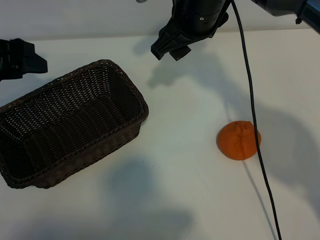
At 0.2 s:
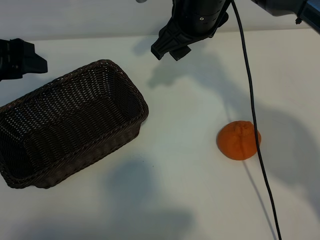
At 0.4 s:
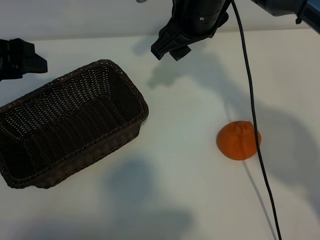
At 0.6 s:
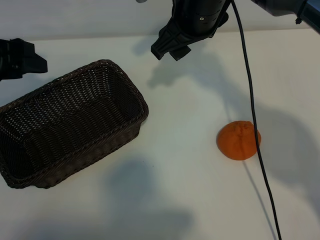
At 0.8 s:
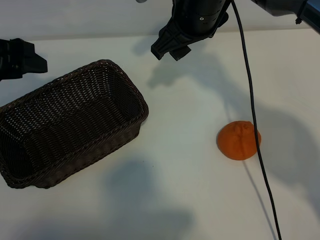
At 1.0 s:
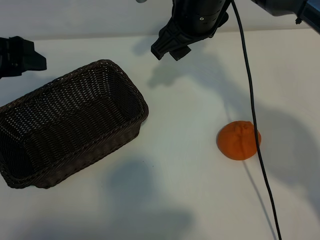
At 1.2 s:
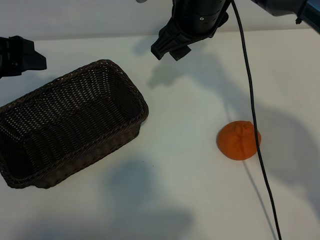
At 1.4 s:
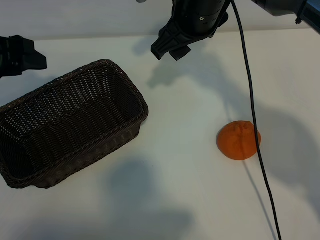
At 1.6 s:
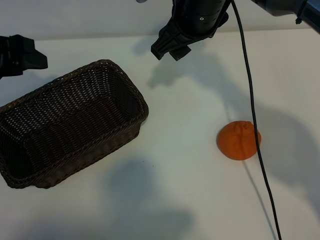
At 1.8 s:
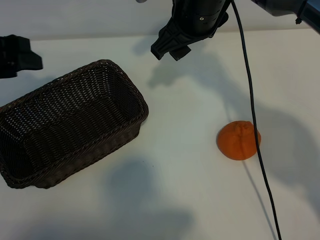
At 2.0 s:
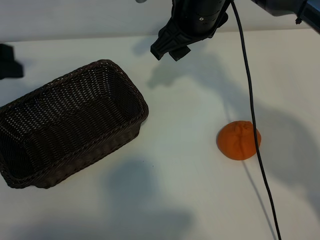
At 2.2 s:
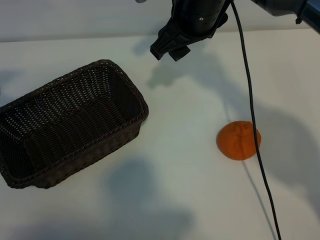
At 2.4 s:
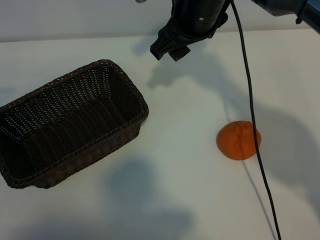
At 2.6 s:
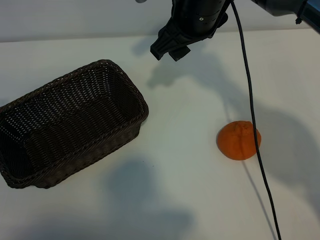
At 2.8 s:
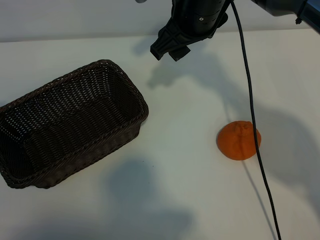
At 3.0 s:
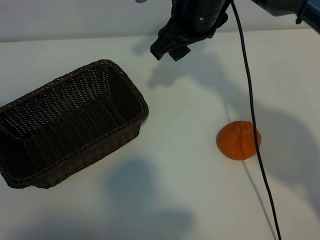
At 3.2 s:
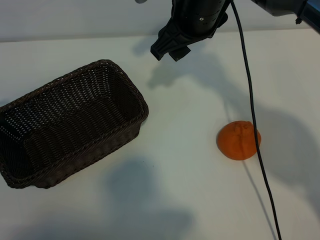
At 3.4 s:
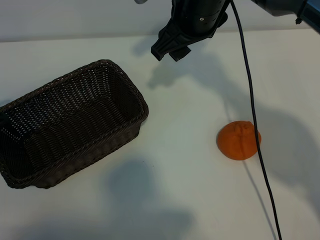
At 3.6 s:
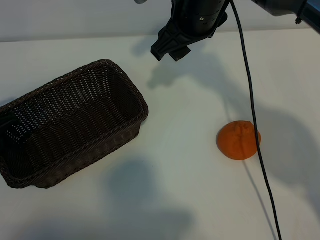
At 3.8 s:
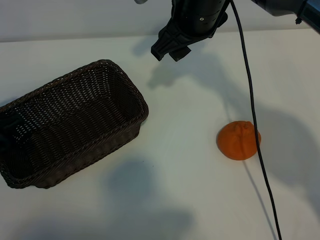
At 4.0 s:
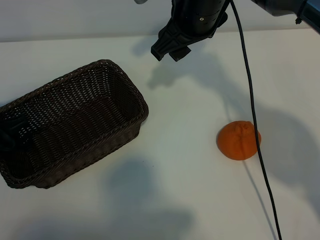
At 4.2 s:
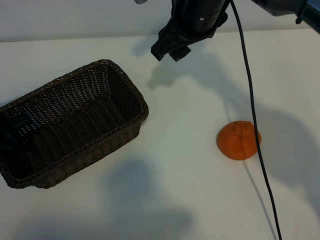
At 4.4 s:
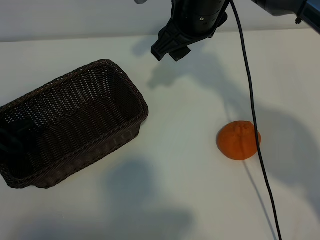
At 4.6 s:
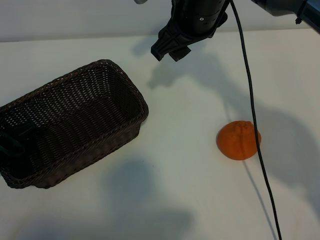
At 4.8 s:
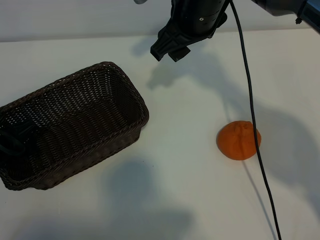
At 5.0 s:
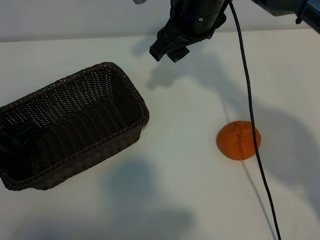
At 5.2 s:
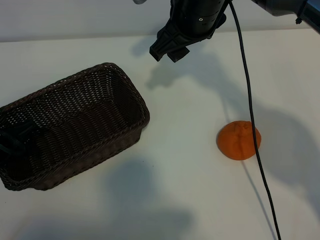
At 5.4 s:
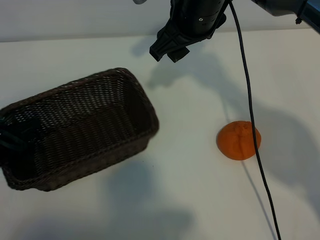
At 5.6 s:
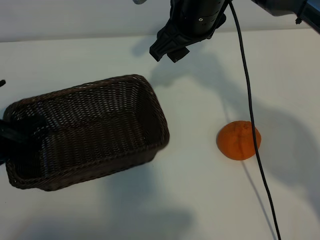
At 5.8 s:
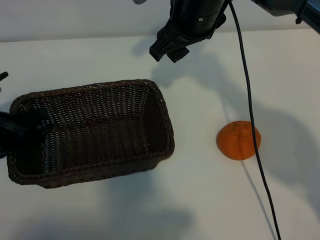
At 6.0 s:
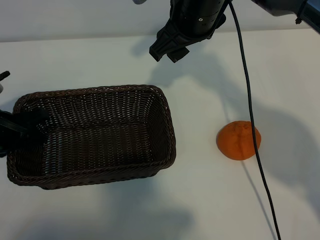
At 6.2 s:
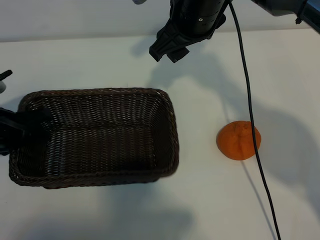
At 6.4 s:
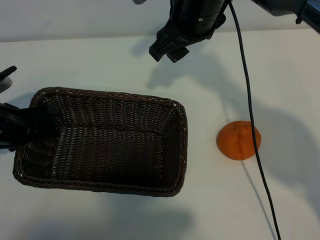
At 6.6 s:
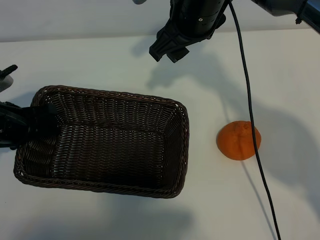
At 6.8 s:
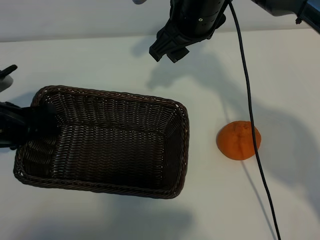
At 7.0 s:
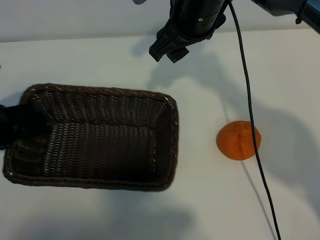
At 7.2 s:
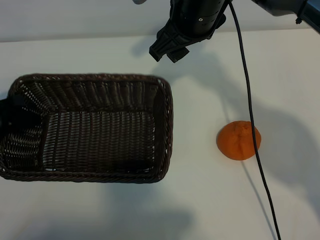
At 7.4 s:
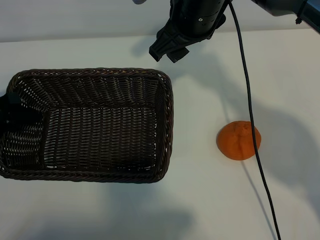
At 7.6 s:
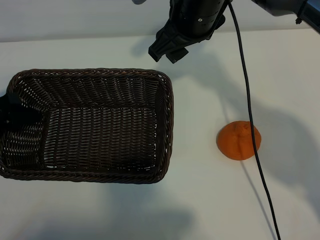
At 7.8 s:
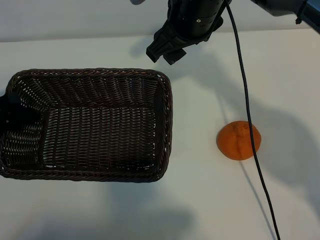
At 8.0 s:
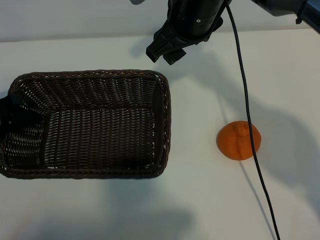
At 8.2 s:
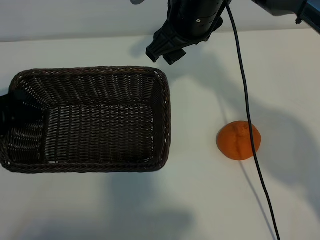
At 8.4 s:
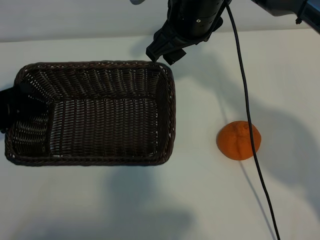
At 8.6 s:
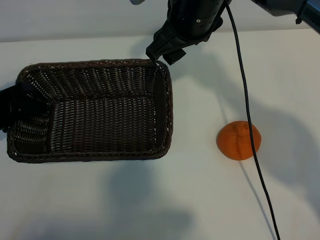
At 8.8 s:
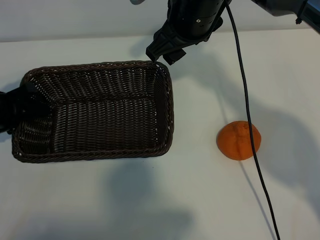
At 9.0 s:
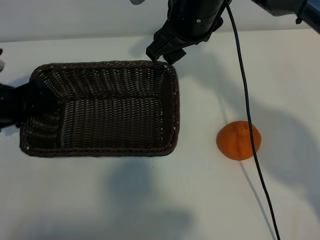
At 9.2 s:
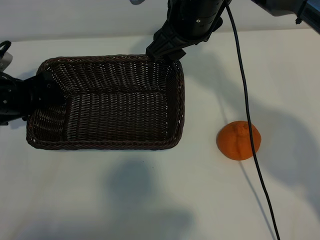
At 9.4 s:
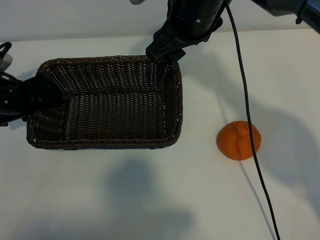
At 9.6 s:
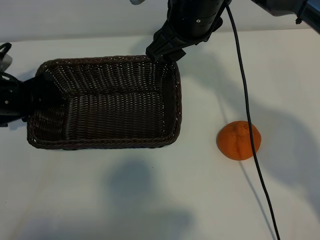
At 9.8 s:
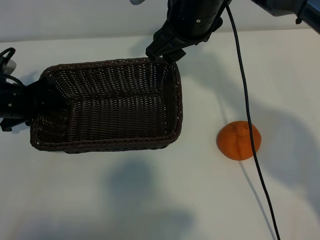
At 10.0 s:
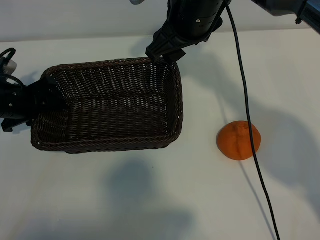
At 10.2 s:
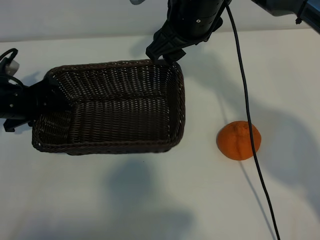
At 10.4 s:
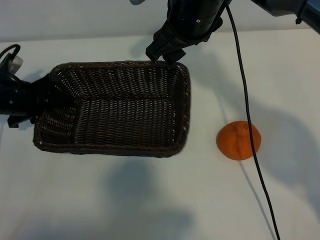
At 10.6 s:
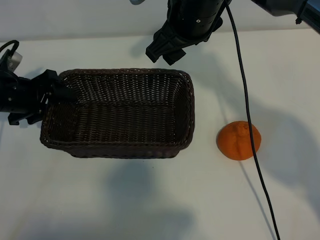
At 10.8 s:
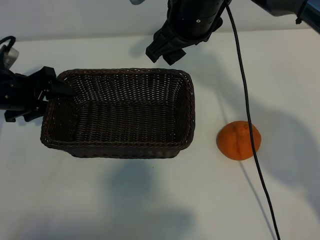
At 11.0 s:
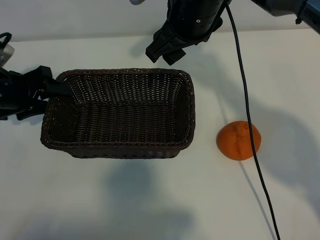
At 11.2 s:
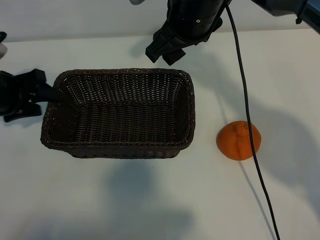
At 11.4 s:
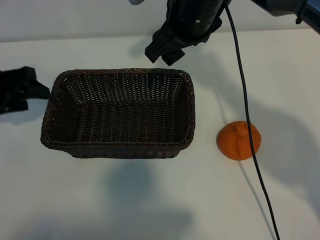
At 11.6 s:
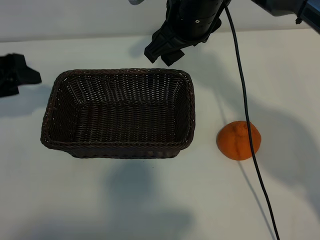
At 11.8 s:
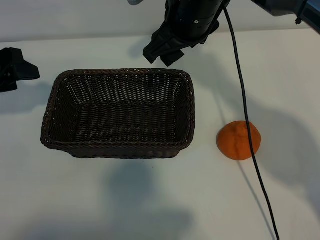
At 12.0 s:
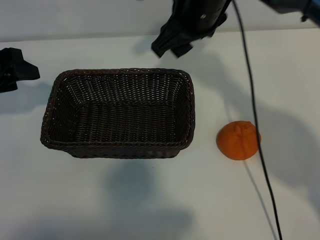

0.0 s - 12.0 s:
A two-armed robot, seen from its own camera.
Task of the whole recording: pick up the orange and put it into the basket.
Step, 1.0 s - 4.8 s: Grasp the basket with left gripper.
Step, 5.0 s - 10.4 s: Place the basket in the center of view with left gripper.

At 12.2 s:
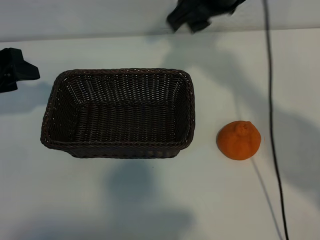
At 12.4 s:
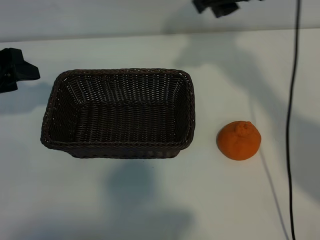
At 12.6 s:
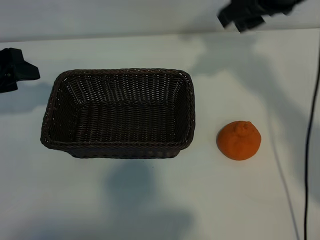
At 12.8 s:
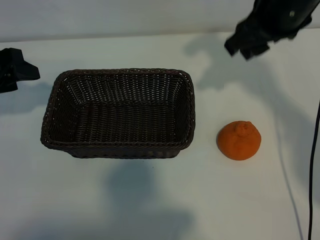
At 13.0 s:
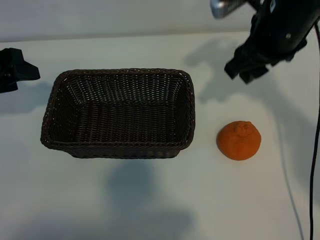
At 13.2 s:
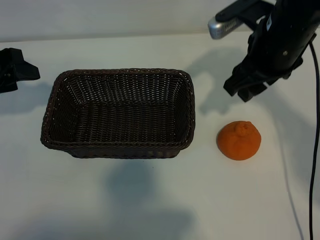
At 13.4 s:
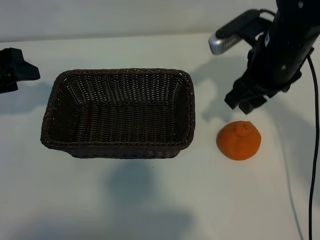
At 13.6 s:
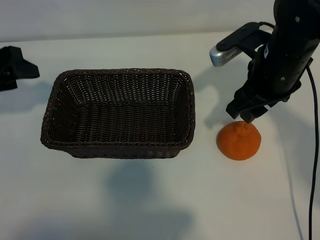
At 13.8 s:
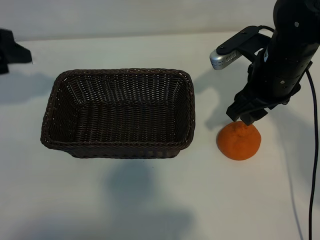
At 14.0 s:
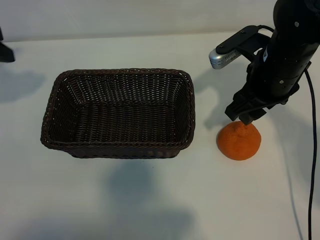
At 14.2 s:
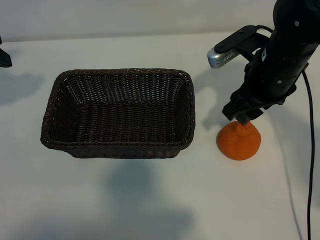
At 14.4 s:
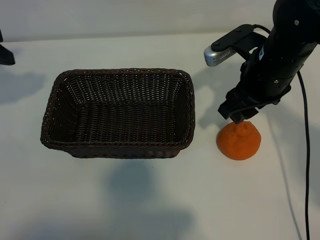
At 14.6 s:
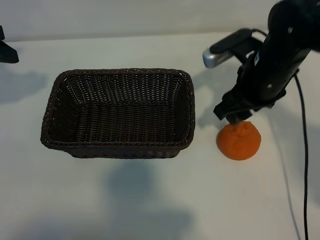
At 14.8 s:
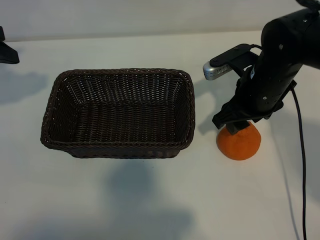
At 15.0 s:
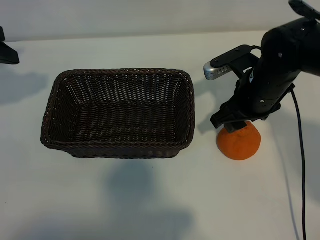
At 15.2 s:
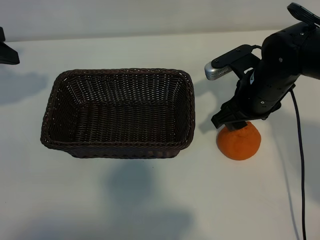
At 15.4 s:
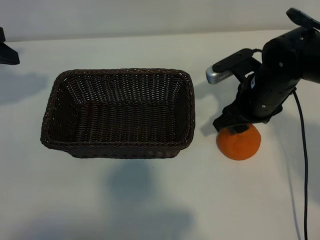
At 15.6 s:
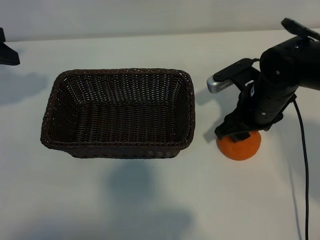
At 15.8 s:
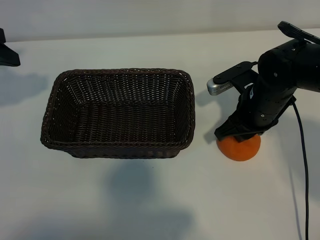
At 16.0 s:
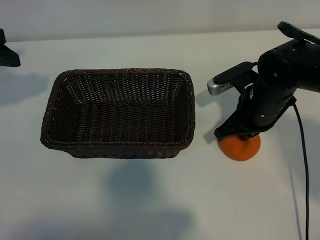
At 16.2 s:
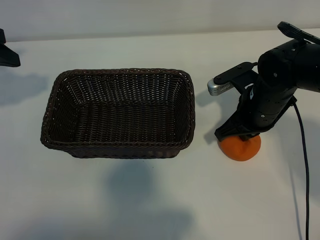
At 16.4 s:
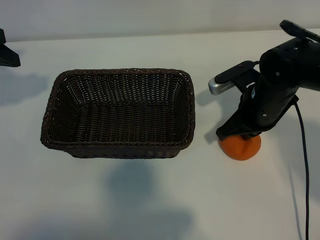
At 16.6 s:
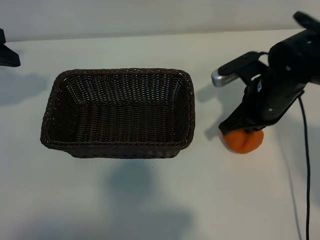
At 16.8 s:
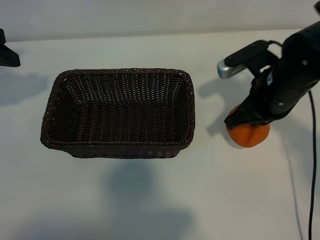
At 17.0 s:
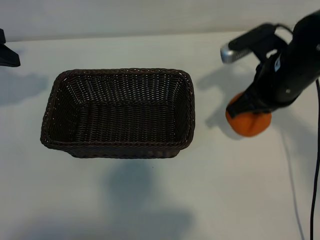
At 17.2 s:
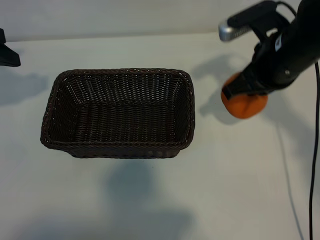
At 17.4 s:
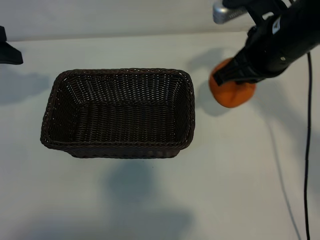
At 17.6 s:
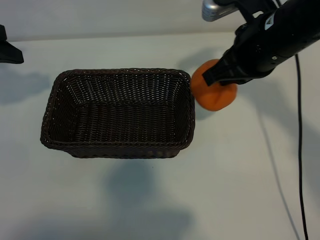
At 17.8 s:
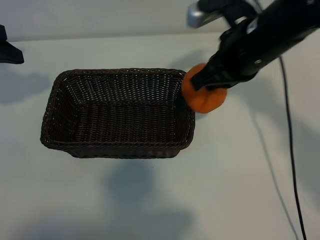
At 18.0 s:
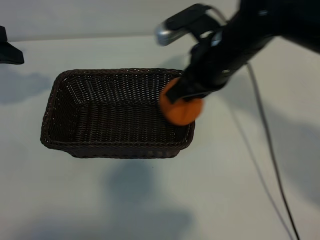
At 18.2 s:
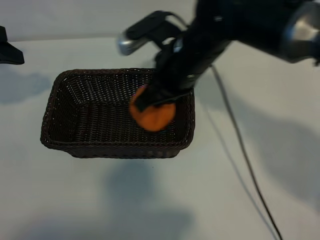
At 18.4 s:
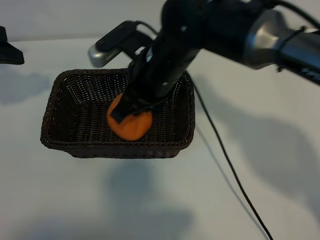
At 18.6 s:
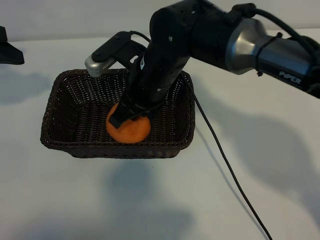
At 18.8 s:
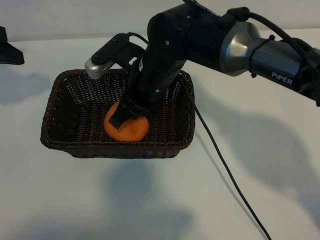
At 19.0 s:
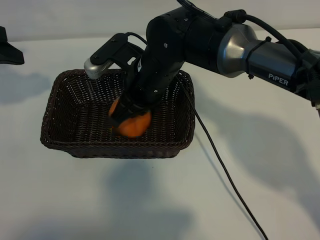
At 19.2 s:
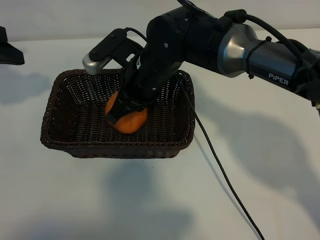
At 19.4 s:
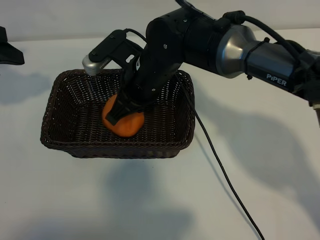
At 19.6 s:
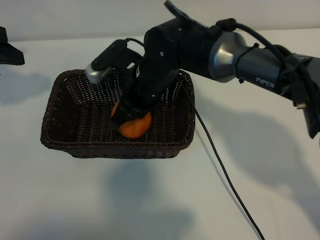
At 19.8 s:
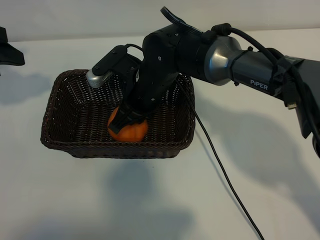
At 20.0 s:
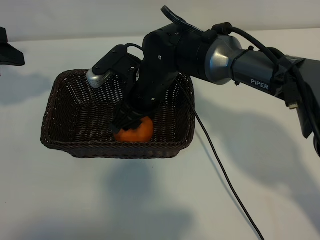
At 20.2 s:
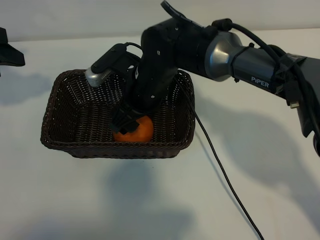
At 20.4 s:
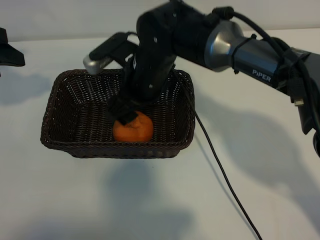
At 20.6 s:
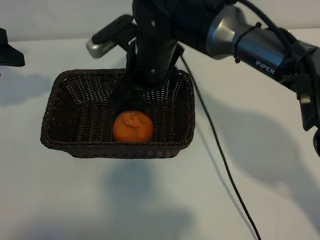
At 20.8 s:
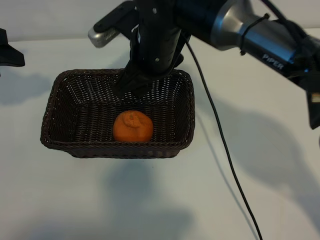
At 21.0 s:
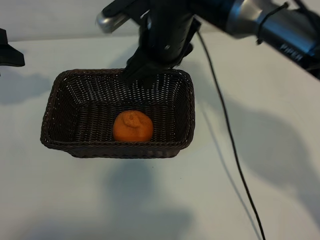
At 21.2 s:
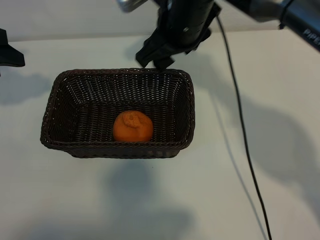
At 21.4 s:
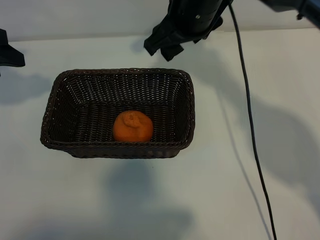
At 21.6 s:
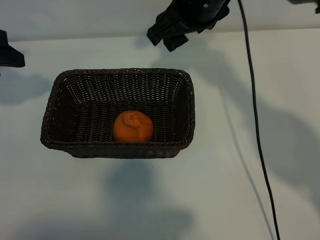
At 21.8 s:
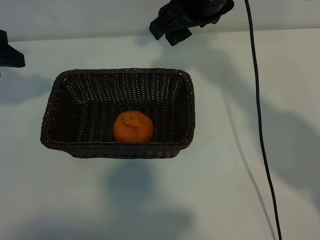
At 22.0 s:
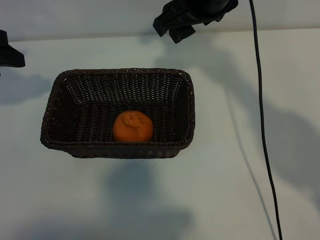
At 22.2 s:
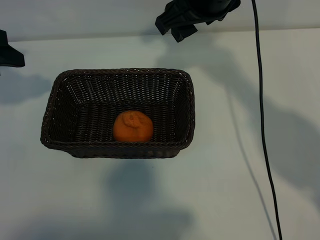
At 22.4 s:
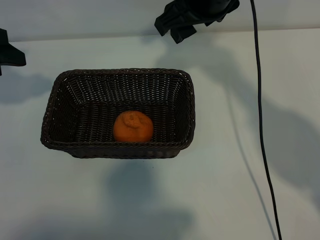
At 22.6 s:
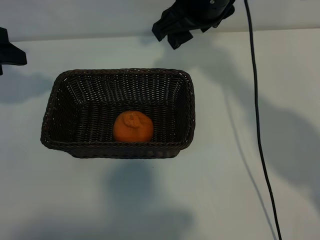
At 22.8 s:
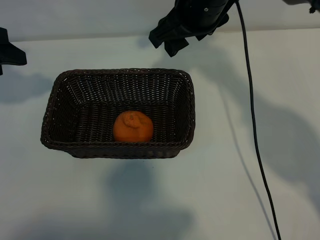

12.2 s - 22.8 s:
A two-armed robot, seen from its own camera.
Task of the whole recording: pick up the orange and put it into the basket.
Step, 12.2 s - 16.0 s: Grasp the orange with right gripper.
Step, 16.2 s - 20.0 s: Place the orange in the basket with right gripper.
